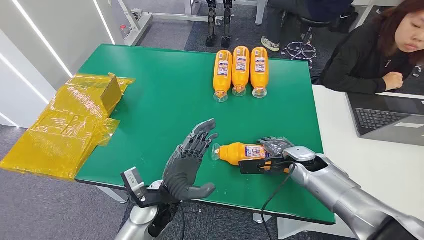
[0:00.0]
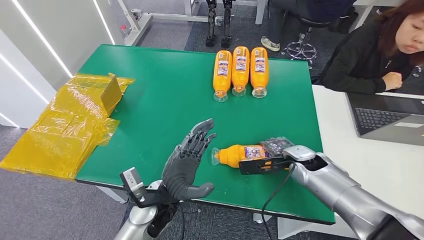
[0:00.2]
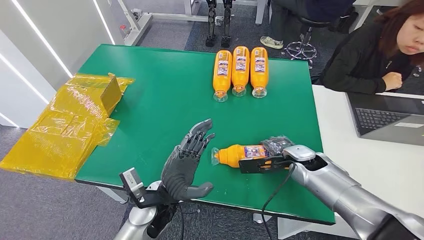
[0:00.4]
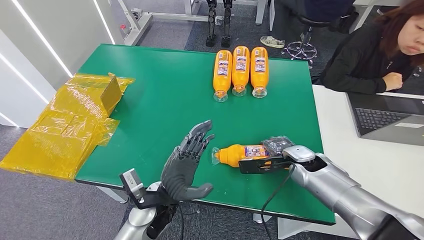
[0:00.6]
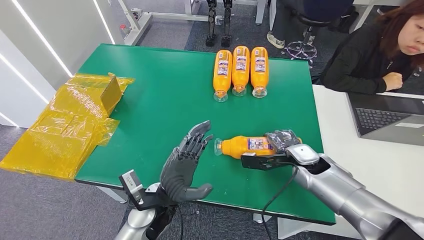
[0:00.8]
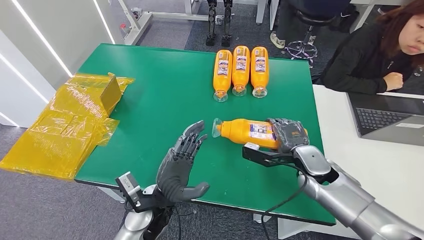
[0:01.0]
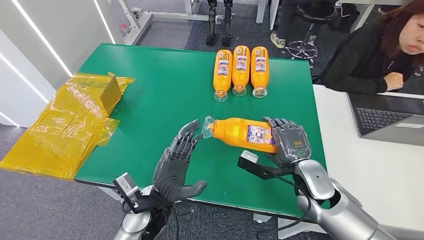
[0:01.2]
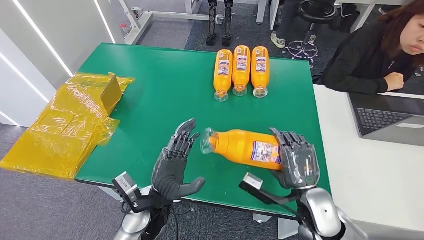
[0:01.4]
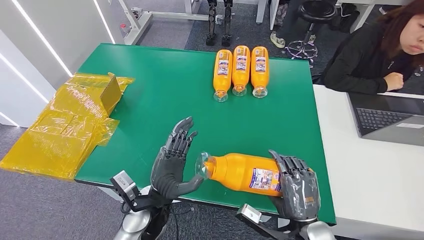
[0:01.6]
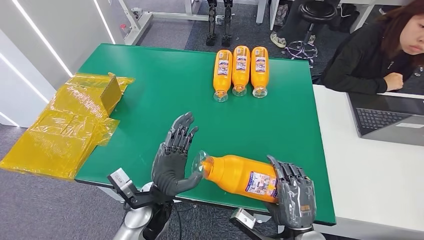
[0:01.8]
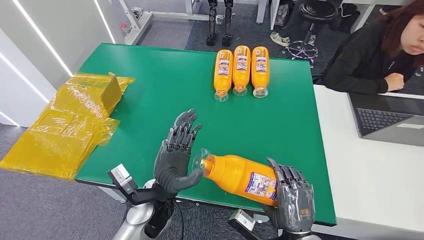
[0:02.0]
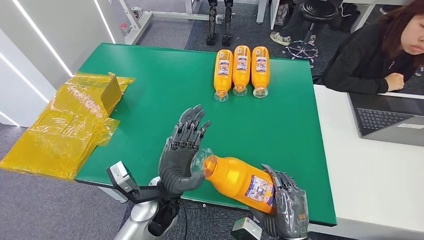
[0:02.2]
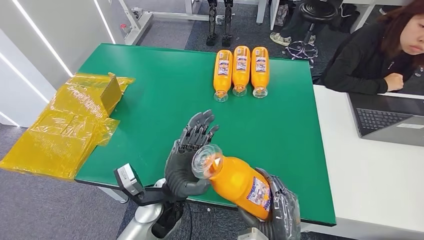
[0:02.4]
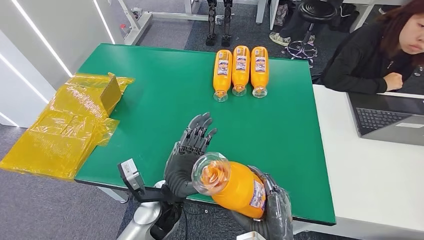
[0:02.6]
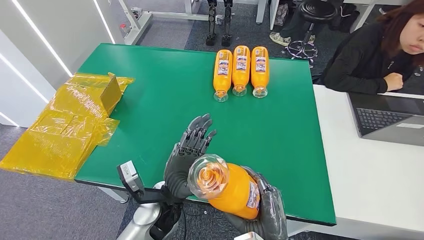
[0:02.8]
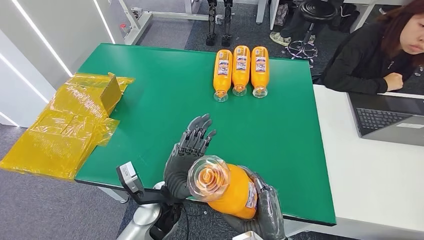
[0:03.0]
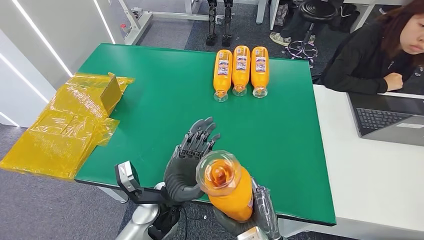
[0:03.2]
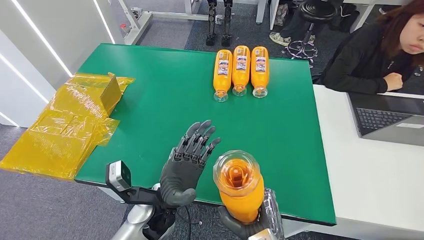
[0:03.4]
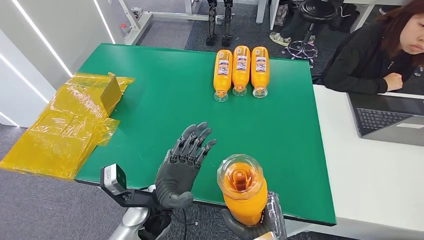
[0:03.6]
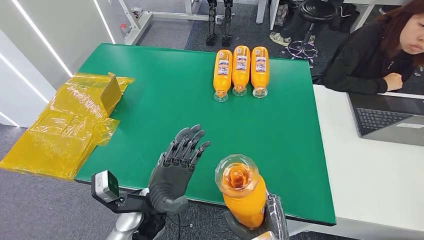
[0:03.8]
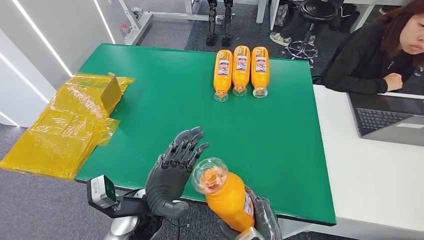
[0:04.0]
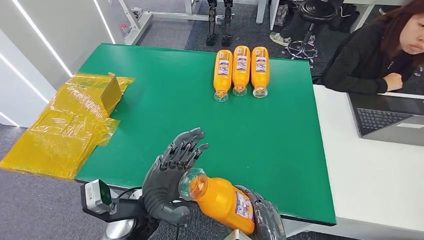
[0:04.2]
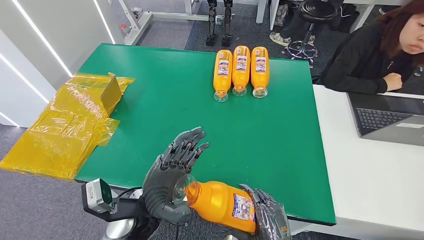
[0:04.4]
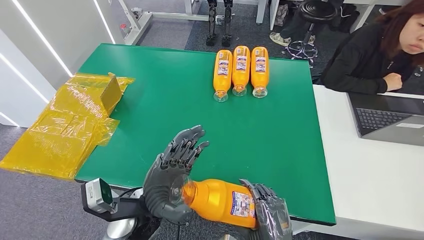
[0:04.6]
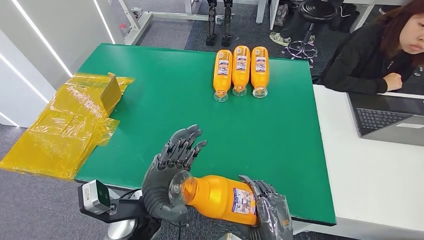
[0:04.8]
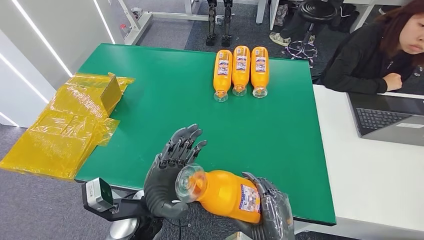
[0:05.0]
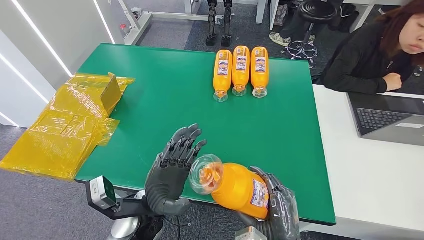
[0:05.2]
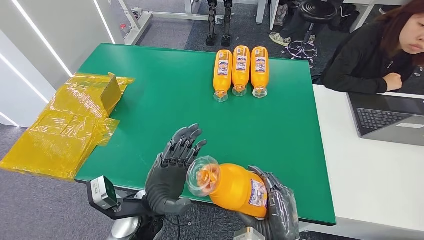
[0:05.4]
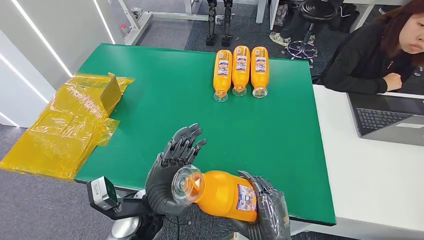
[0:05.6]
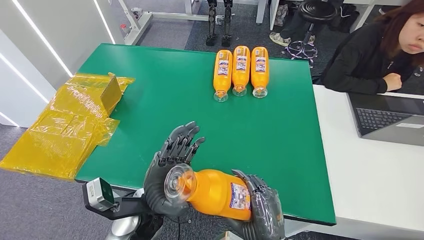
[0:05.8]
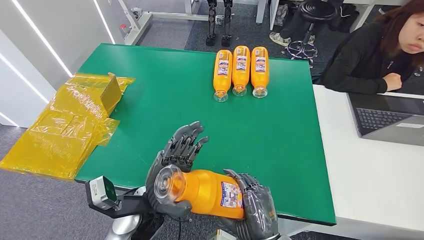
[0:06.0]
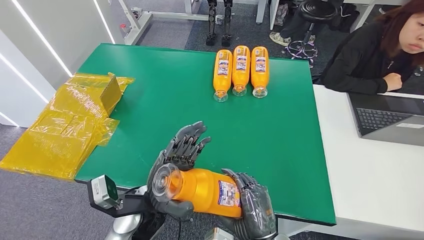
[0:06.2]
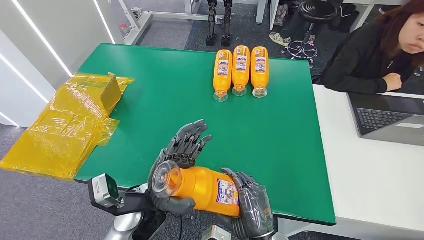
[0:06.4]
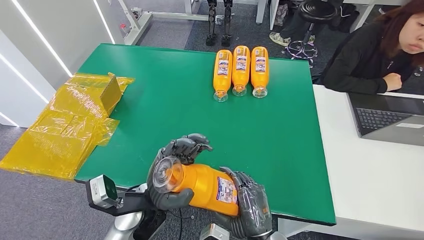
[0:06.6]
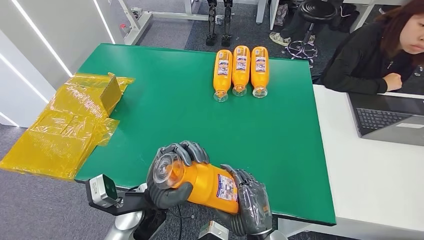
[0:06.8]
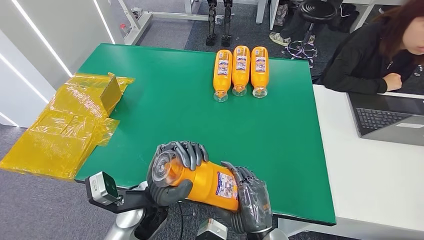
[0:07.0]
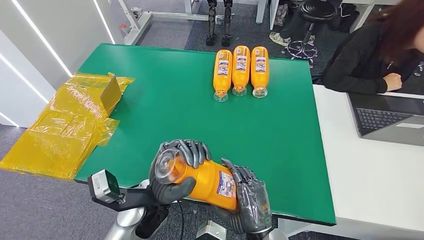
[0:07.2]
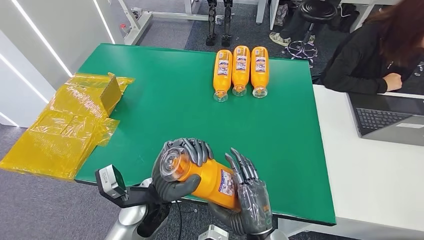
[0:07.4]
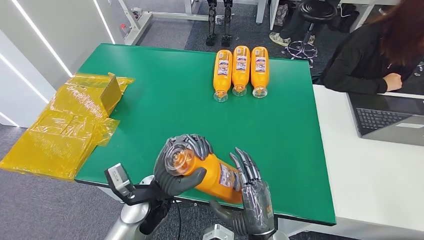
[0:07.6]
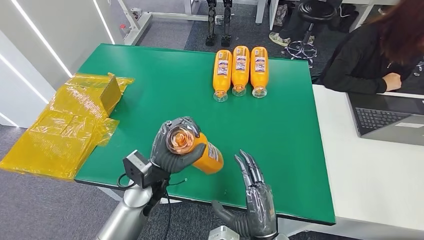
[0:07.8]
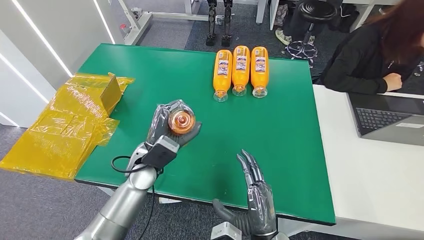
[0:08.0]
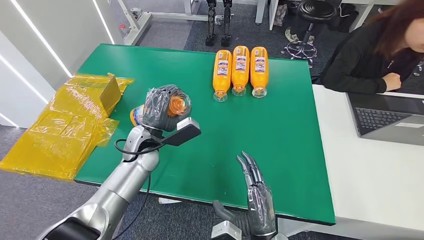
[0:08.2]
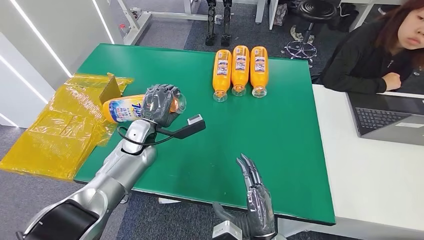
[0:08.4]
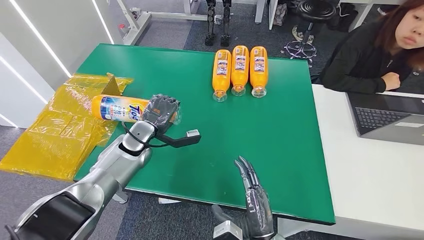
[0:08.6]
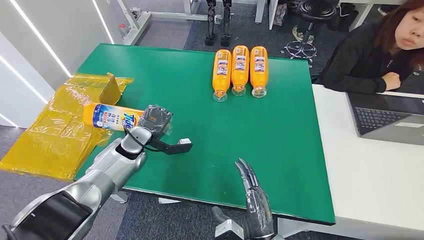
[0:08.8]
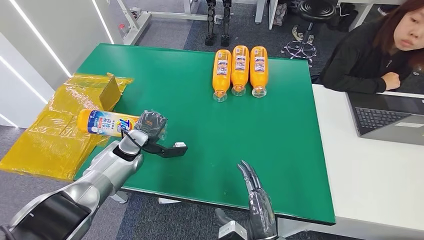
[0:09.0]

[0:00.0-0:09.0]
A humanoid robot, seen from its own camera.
Step, 0:00.0 to 0:02.2: Pick up the bottle from the table.
Step, 0:02.4 to 0:09.0: Turn the bottle to the front side.
0:01.6 to 0:03.0: The right hand is displaced to the left and backward by some 10 cm.
0:04.4 to 0:06.0: The hands stay close to where they were, moving slightly.
0:06.0 to 0:07.6: The hands move only a little.
0:07.6 to 0:09.0: The left hand shifts some 20 cm to the left and forward.
